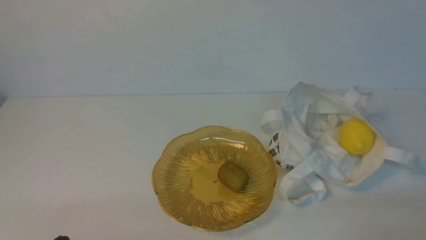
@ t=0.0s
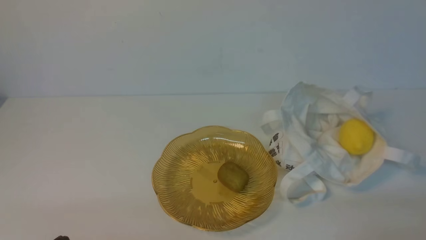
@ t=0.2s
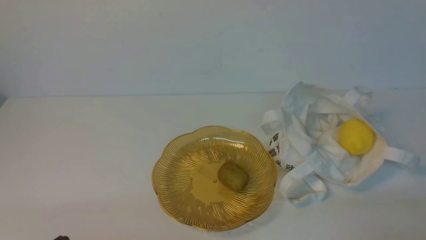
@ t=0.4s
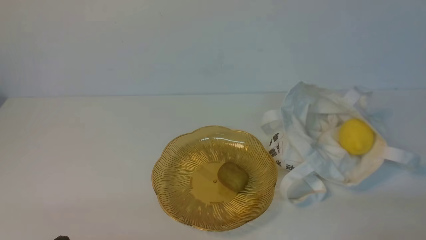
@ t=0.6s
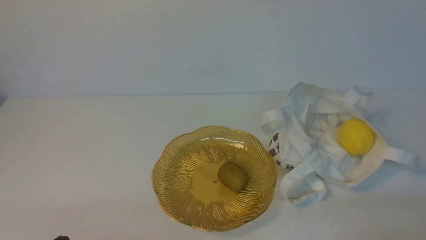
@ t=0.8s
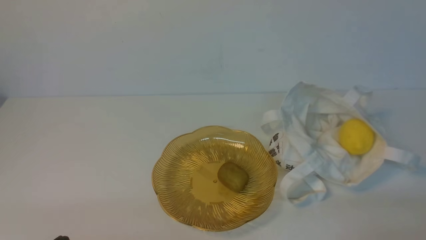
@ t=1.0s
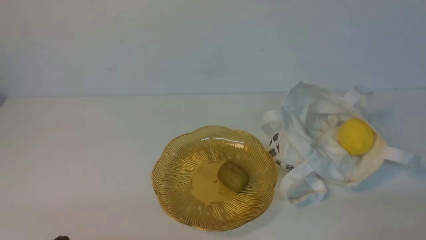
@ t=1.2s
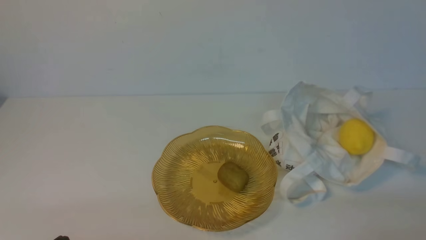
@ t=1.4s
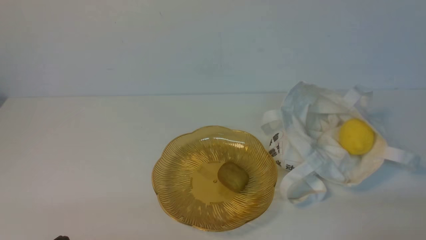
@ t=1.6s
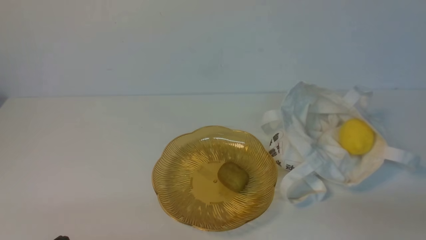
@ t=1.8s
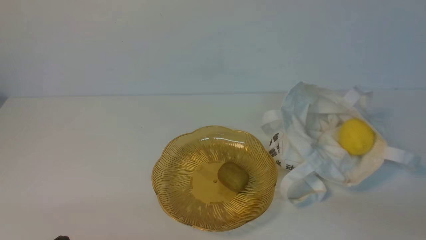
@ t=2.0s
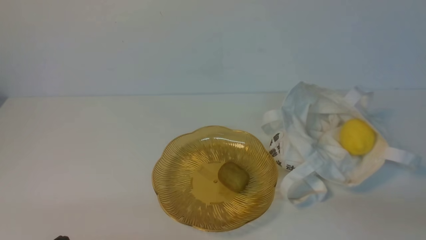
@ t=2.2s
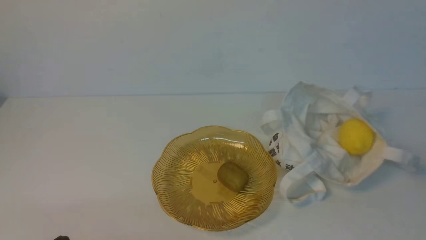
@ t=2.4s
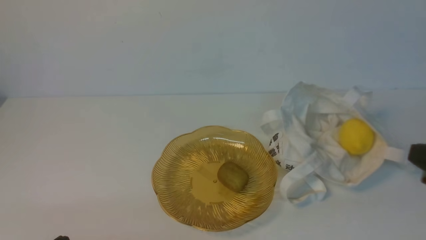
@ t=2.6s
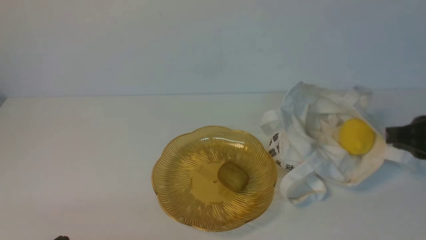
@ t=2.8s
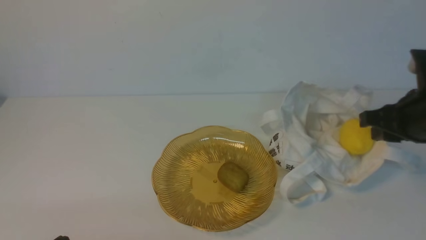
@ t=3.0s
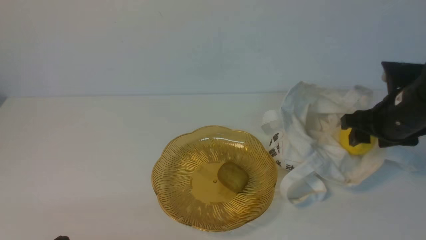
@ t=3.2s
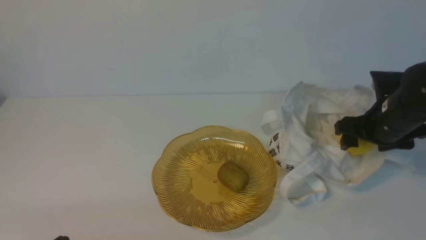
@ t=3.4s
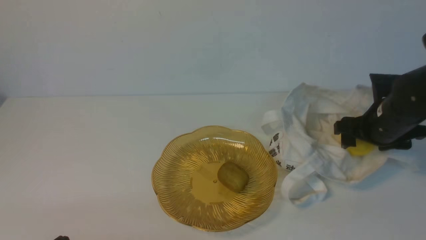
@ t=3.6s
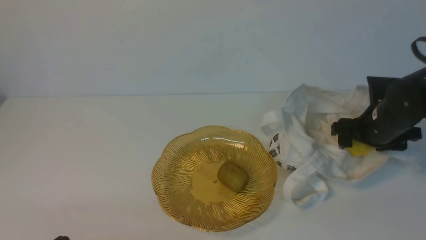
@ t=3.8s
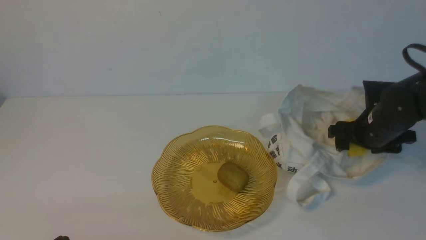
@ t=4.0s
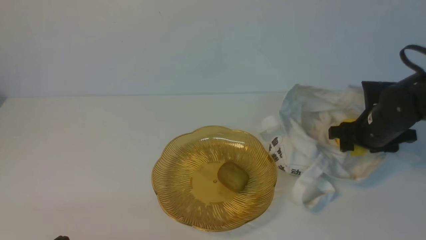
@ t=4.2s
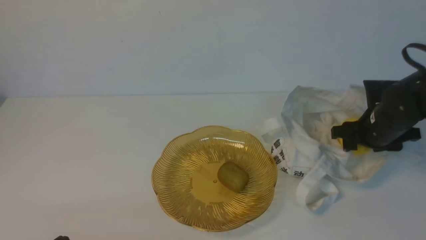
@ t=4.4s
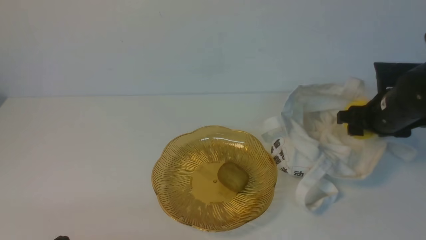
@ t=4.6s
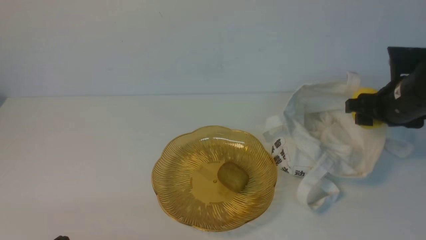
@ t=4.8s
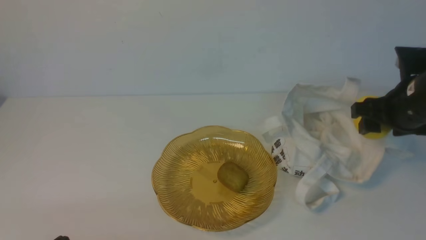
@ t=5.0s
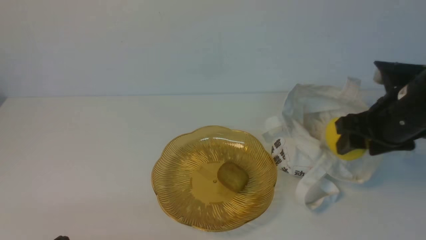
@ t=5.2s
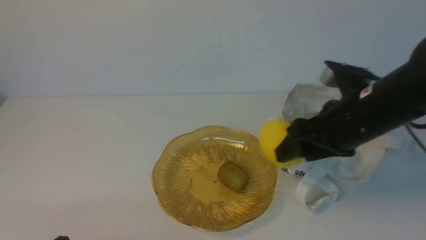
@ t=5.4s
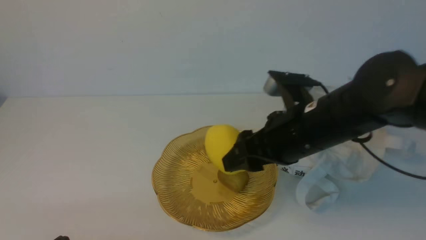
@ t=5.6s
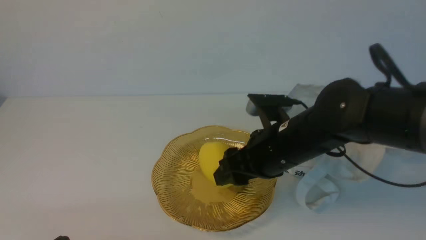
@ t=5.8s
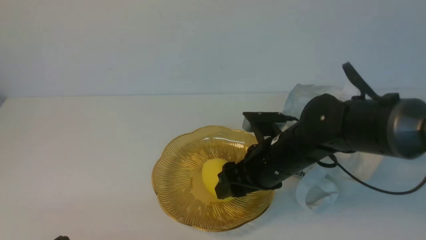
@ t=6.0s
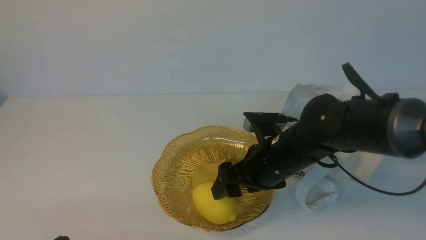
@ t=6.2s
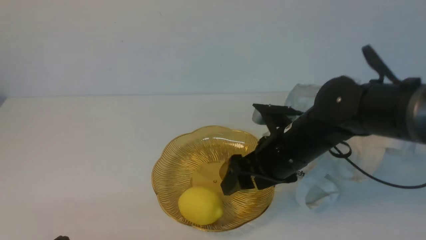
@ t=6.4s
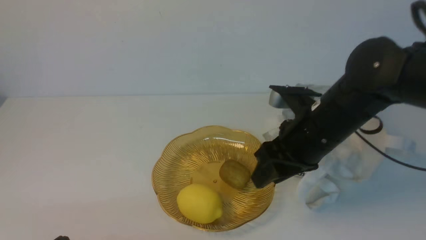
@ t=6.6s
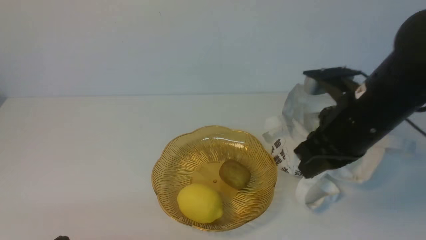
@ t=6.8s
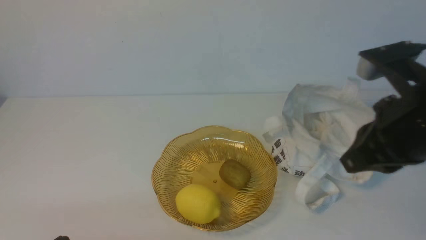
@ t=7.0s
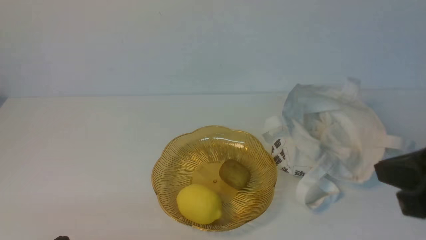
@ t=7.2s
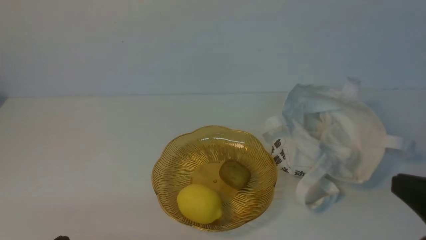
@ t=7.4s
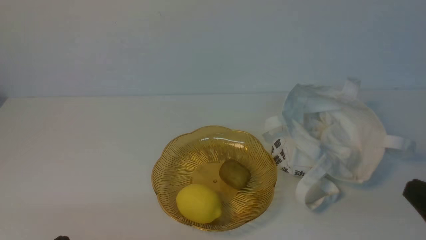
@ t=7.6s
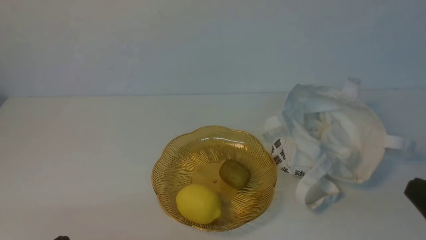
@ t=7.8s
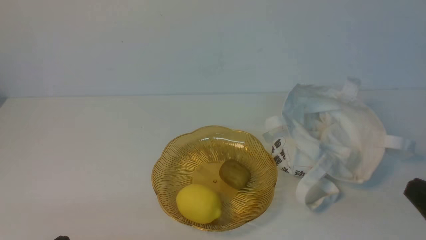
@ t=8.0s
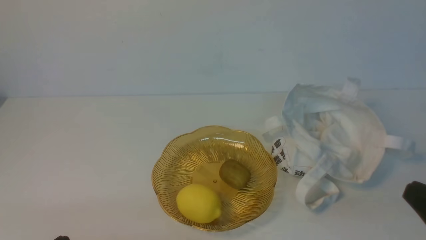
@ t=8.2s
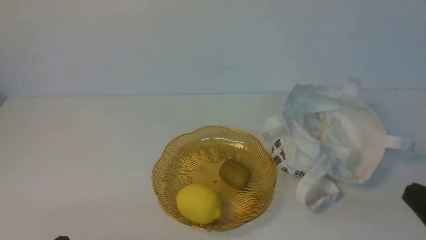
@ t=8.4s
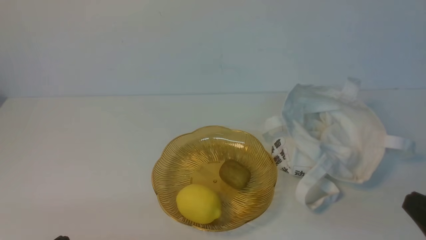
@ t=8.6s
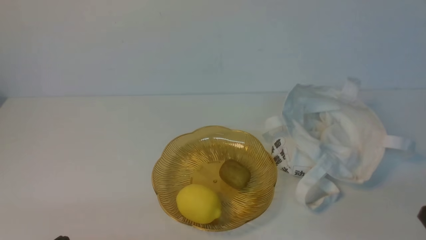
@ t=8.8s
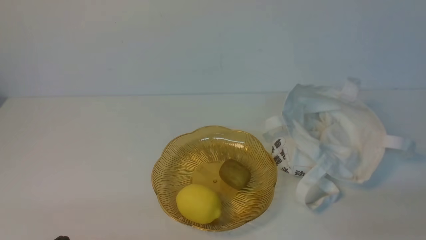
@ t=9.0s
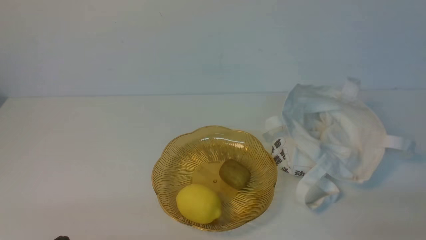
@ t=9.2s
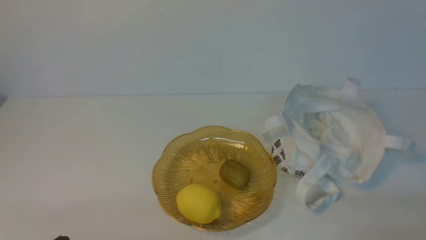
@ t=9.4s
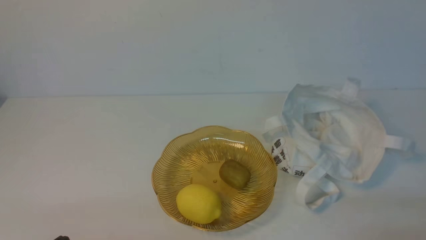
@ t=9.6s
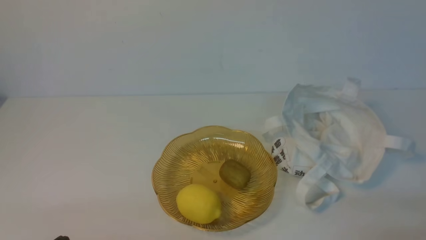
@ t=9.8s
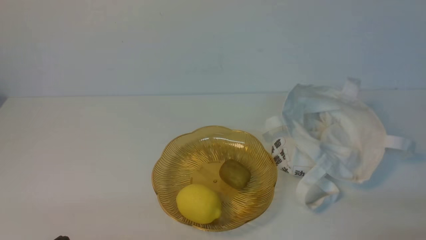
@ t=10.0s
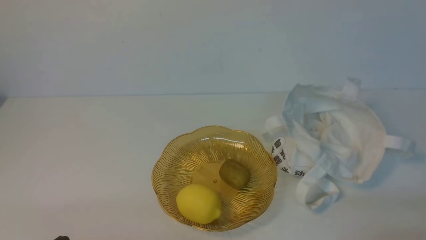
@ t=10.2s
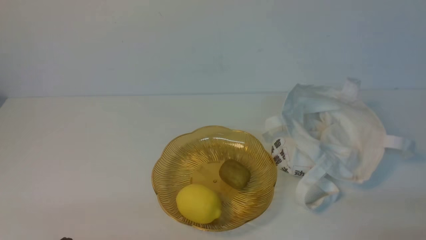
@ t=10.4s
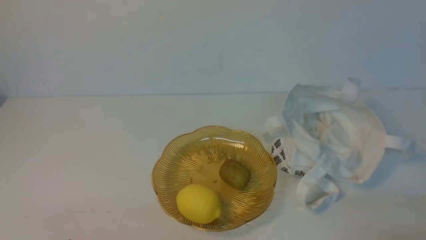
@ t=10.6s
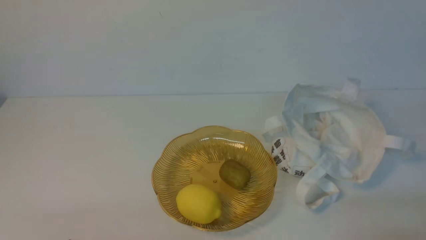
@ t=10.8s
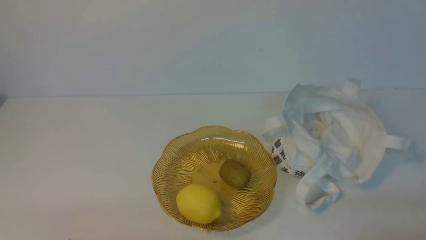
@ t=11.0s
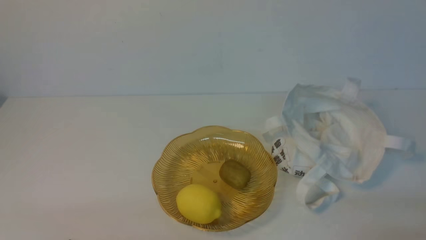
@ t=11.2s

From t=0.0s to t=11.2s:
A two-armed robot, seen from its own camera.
Step, from t=0.0s to t=4.6s: use the right arm to grab a lemon from the bag.
Step, from t=4.8s to t=6.2s: use the right arm to put the lemon into the empty plate on the left.
From t=1.6s to t=3.2s: The right gripper heads forward, covering some 25 cm, and opens its fingers.
From t=4.8s to t=6.4s: The right gripper goes about 15 cm to the left.
From t=6.4s to t=8.0s: The right gripper moves backward and to the right, roughly 25 cm, and closes its fingers.
From t=9.6s to t=11.2s: Both grippers stay put.
